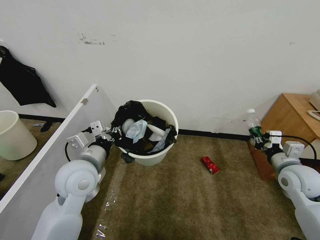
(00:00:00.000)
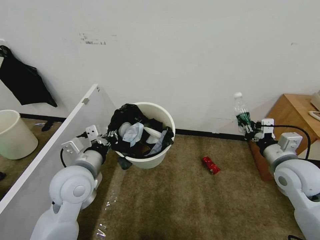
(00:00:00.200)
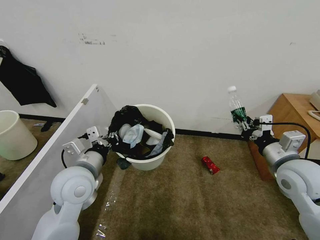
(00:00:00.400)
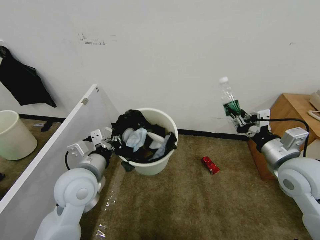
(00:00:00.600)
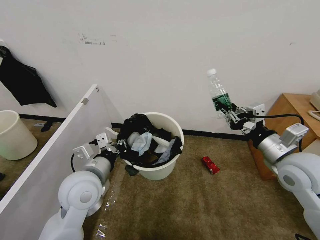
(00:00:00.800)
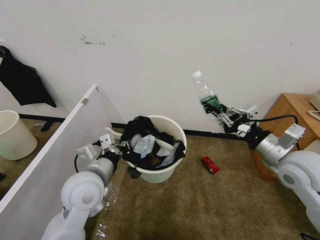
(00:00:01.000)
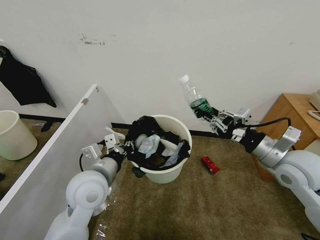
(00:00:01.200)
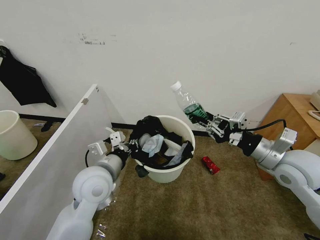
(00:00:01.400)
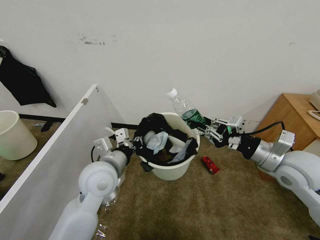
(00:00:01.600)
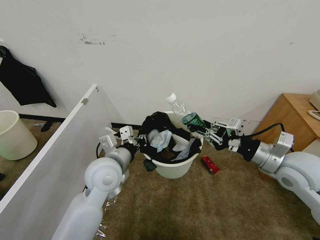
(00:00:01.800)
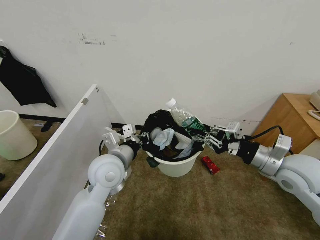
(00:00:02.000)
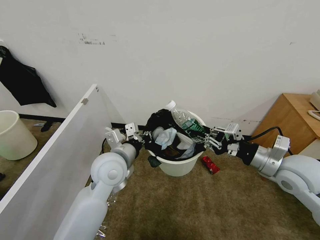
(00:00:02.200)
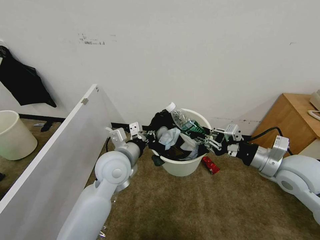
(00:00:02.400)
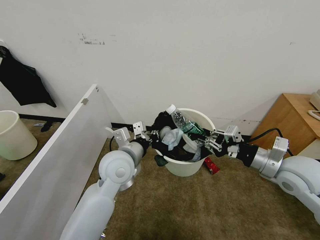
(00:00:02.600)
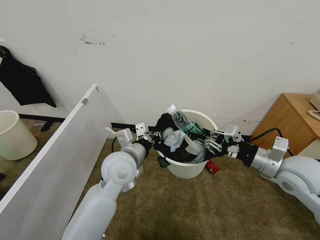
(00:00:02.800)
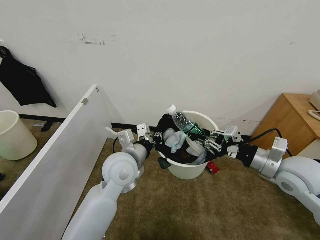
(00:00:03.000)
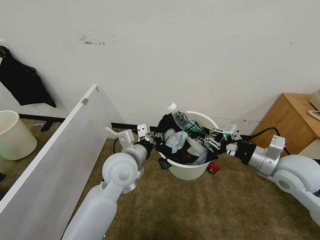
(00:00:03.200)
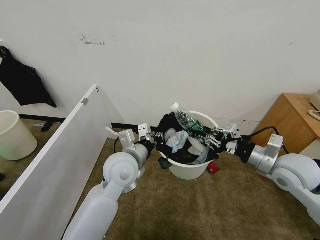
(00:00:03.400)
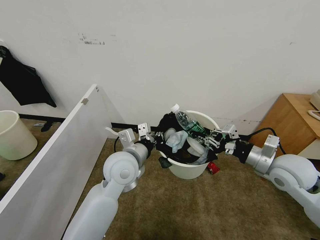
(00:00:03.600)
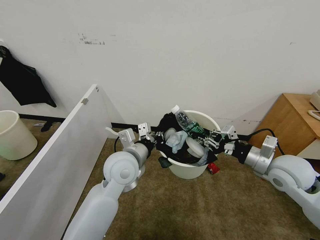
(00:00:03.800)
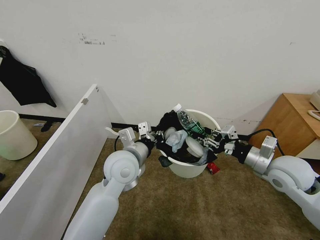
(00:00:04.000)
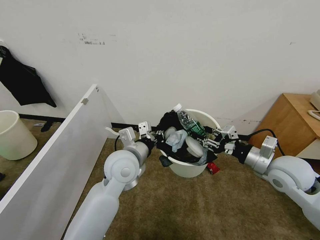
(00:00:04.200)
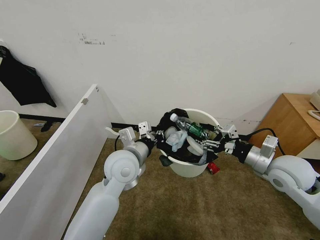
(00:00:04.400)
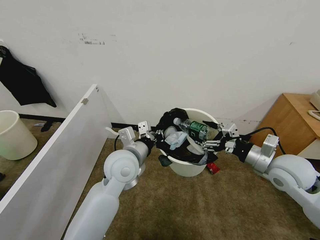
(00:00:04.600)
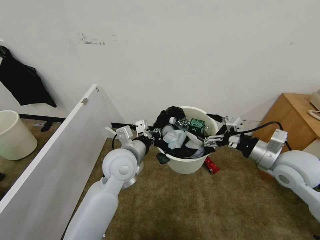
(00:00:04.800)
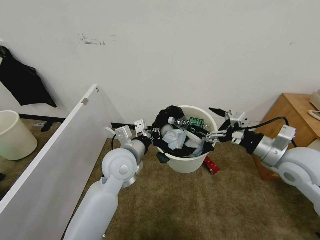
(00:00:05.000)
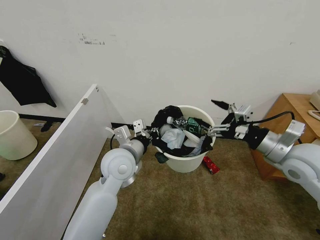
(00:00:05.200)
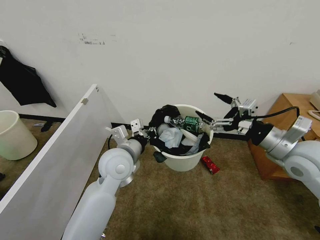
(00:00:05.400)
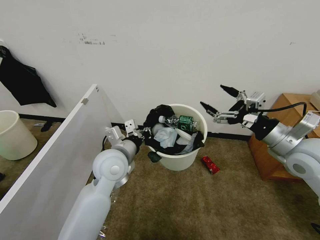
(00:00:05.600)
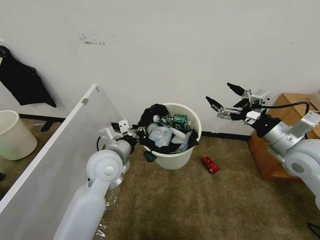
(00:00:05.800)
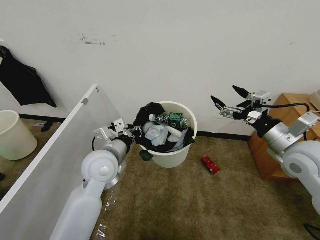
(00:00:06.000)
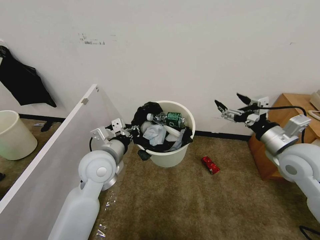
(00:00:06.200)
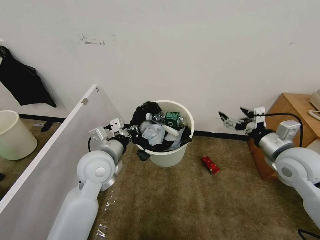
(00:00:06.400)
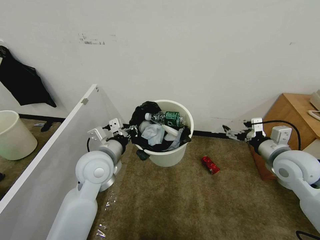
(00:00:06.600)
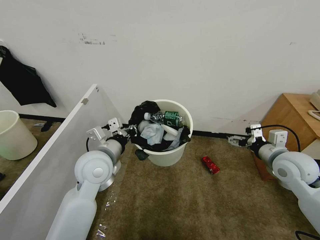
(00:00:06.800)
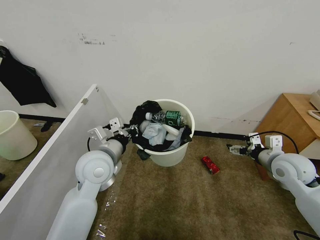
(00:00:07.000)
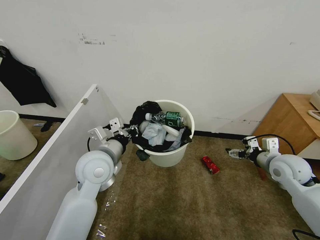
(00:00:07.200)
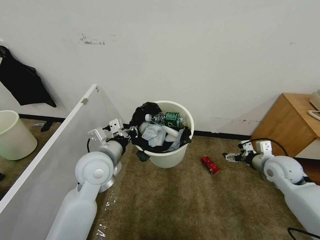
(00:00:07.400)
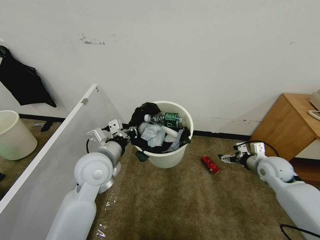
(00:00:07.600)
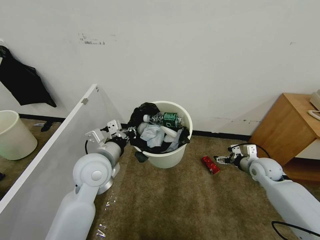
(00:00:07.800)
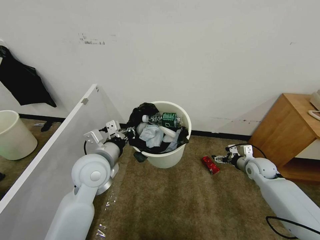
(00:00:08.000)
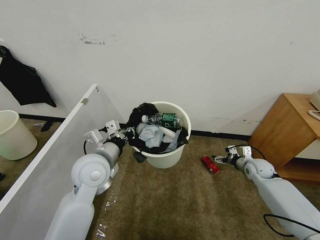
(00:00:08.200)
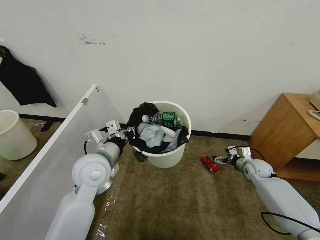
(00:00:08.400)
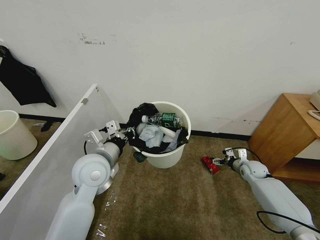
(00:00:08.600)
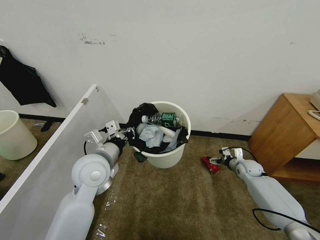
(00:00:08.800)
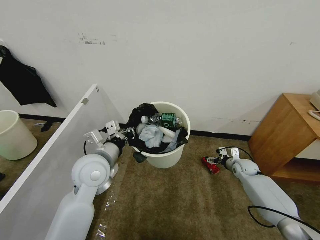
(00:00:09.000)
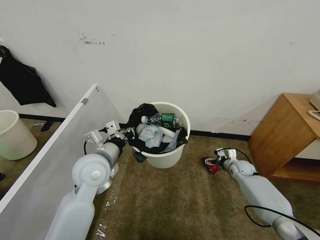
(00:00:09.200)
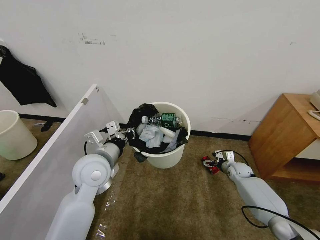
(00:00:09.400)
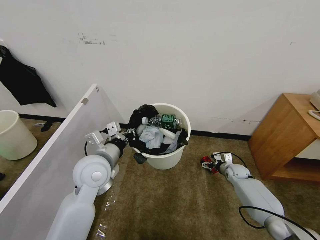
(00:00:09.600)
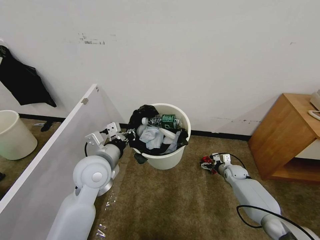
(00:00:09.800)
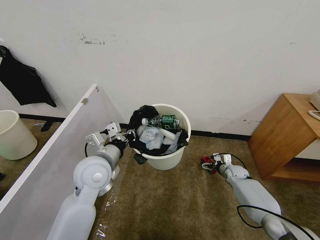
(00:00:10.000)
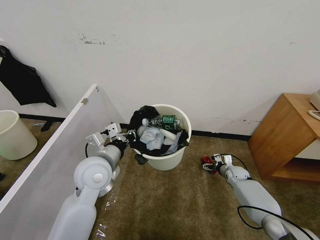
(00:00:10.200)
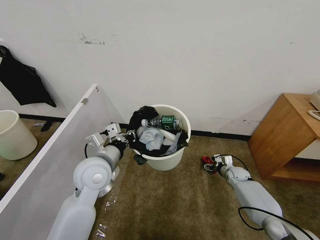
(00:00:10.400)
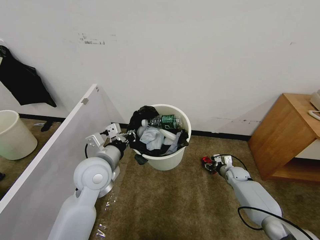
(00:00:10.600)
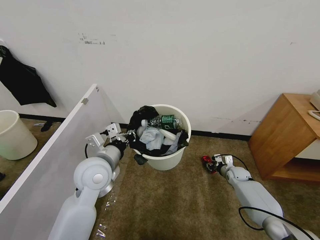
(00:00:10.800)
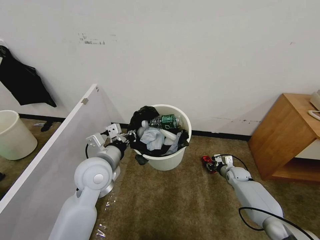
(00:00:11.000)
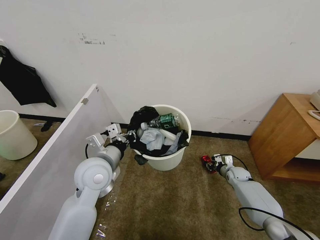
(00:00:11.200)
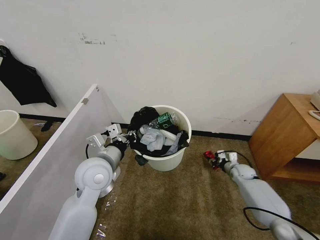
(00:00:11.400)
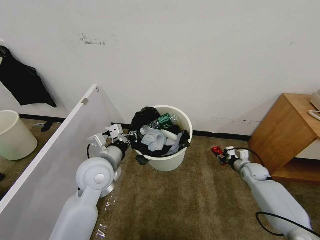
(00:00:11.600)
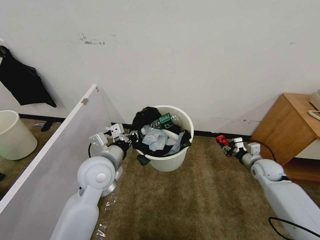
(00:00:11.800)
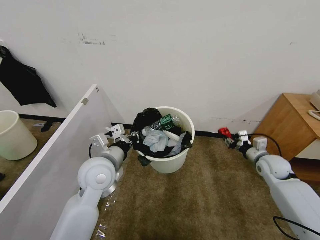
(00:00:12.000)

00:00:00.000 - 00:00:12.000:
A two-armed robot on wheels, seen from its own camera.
Task of the whole recording: Pick up the trash bin, then pick up the garbage from the floor and place it into the trash bin.
00:00:00.000 - 00:00:01.600: The right gripper is displaced upward and to the left by some 15 cm.
00:00:01.600 - 00:00:03.000: The left gripper shifts approximately 5 cm to the right.
00:00:03.000 - 00:00:04.400: The right gripper opens.
00:00:04.400 - 00:00:06.000: The left gripper moves to the left, roughly 5 cm; the right gripper is displaced upward by approximately 5 cm.
00:00:06.000 - 00:00:07.600: The right gripper goes approximately 20 cm downward and forward.
00:00:07.600 - 00:00:09.000: The right gripper goes some 15 cm downward and forward.
00:00:09.000 - 00:00:10.400: The right gripper travels downward by roughly 5 cm.
00:00:10.400 - 00:00:12.000: The right gripper shifts approximately 15 cm upward, and closes up.

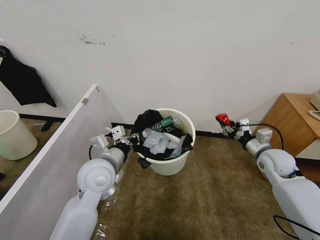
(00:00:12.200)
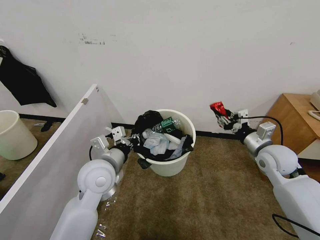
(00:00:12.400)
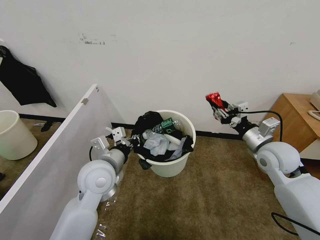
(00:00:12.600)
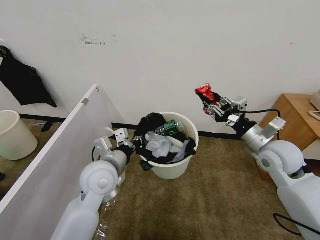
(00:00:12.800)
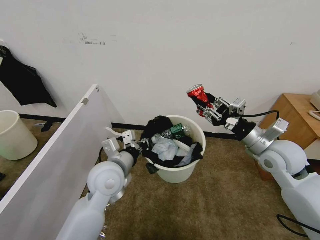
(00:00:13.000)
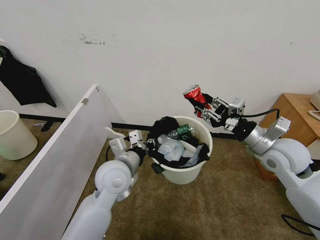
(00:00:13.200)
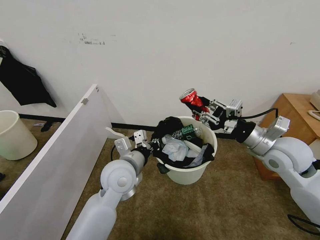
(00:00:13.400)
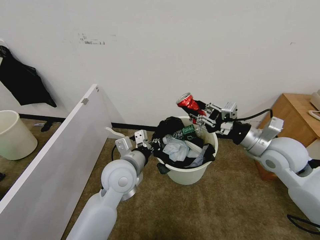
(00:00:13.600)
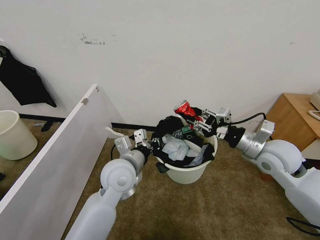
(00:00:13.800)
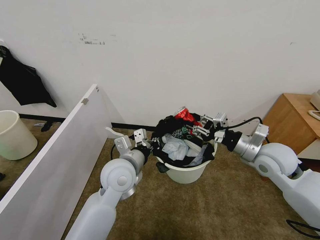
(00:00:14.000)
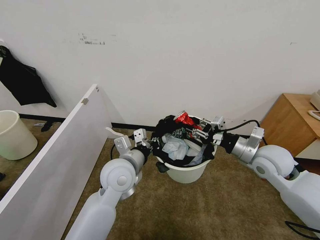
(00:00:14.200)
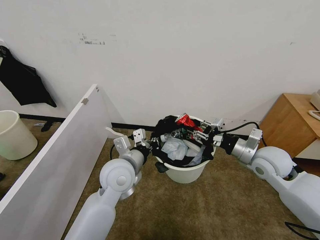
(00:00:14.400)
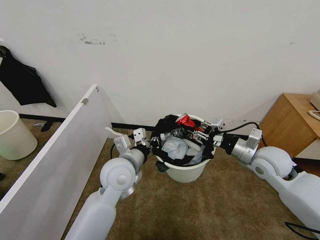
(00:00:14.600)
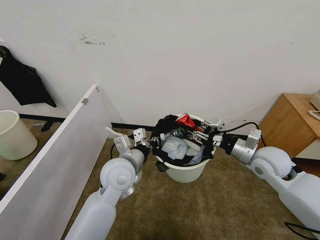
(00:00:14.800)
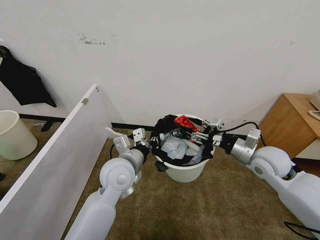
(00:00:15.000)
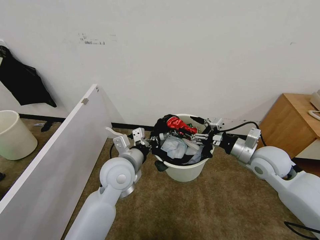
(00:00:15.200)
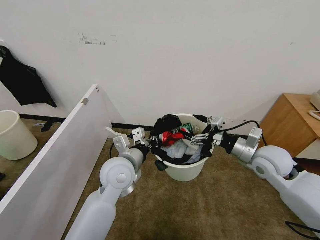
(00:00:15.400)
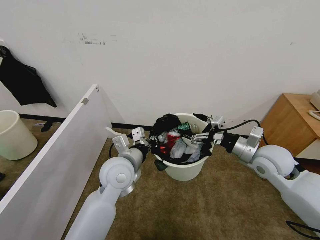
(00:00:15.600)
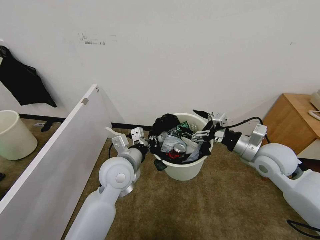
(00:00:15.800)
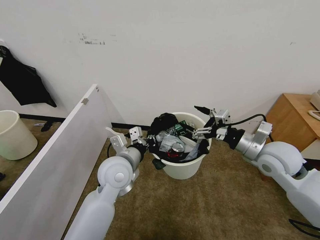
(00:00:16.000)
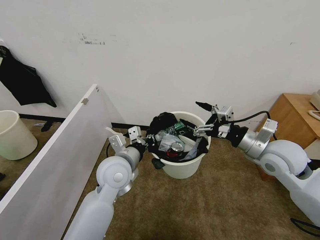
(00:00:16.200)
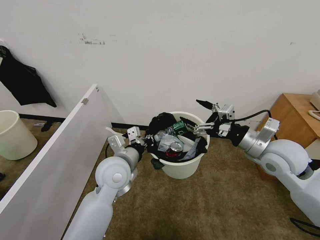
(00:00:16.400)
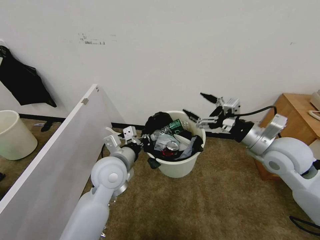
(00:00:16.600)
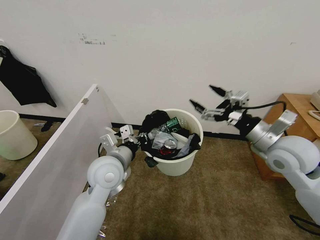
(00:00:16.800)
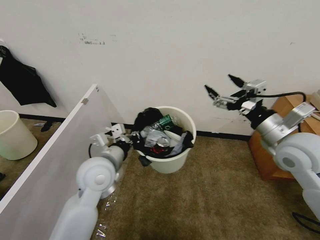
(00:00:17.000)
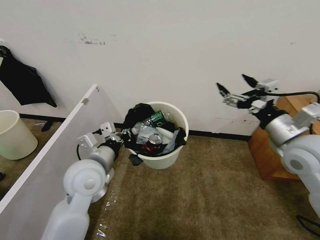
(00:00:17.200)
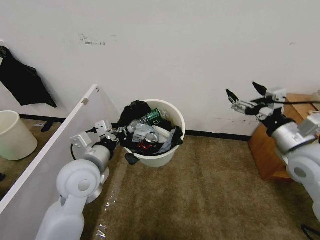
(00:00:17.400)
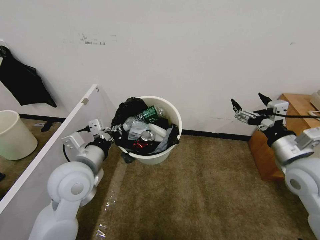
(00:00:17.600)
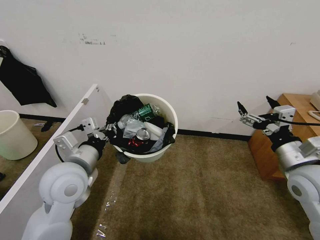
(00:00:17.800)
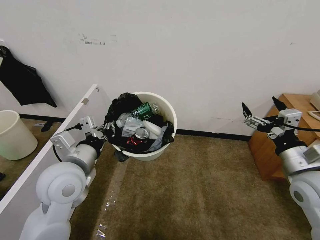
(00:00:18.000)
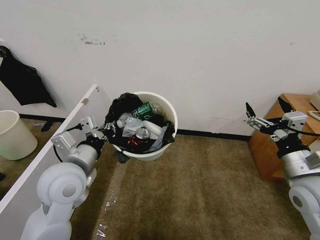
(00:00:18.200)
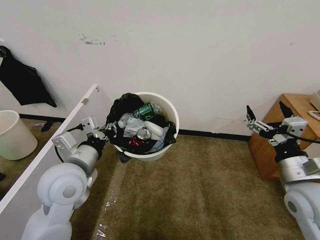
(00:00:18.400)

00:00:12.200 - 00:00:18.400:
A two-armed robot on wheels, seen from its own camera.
Task of the whole recording: Pick up the trash bin, then pick up the garbage from the floor and place it into the trash bin.
00:00:12.200 - 00:00:13.800: The left gripper goes approximately 5 cm to the right; the right gripper heads upward and to the left, covering approximately 10 cm.
00:00:13.800 - 00:00:15.400: The right gripper opens its fingers.
00:00:15.400 - 00:00:16.800: The right gripper travels upward by some 10 cm.
00:00:16.800 - 00:00:18.400: The left gripper is displaced to the left and backward by roughly 10 cm, while the right gripper travels backward and downward by about 10 cm.
